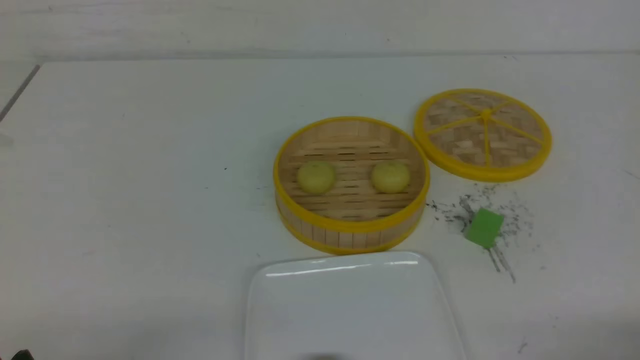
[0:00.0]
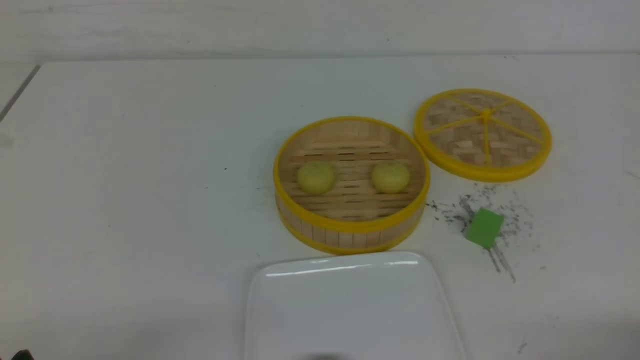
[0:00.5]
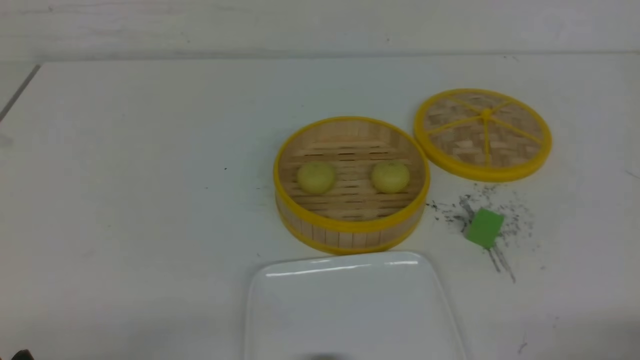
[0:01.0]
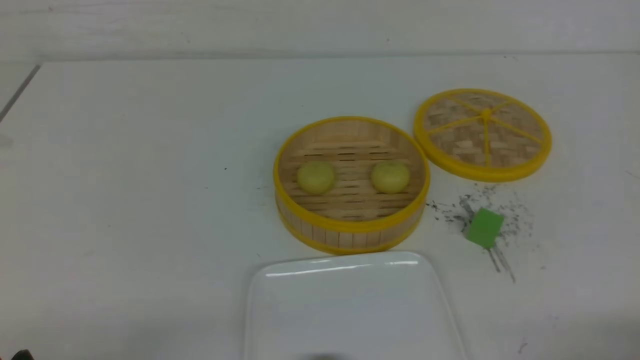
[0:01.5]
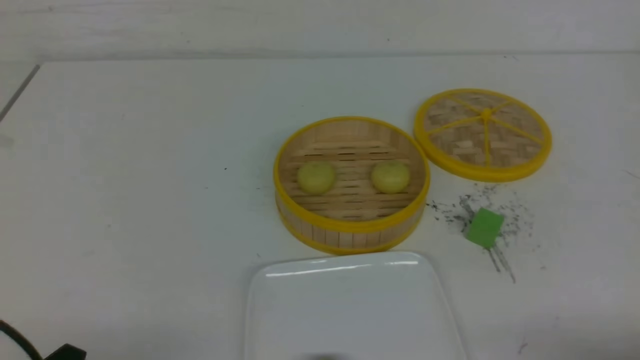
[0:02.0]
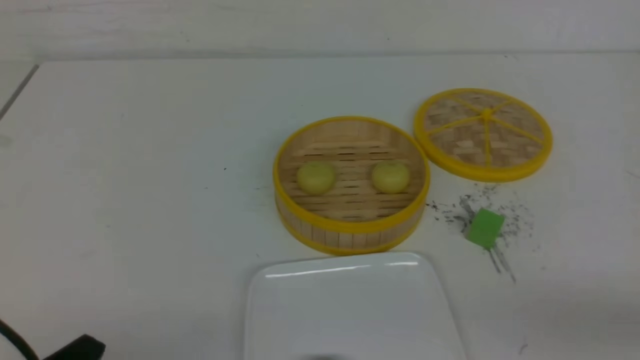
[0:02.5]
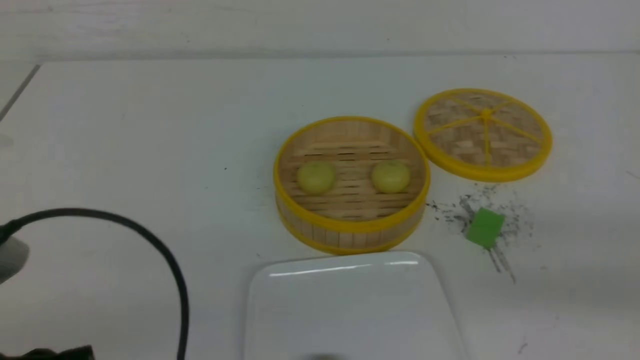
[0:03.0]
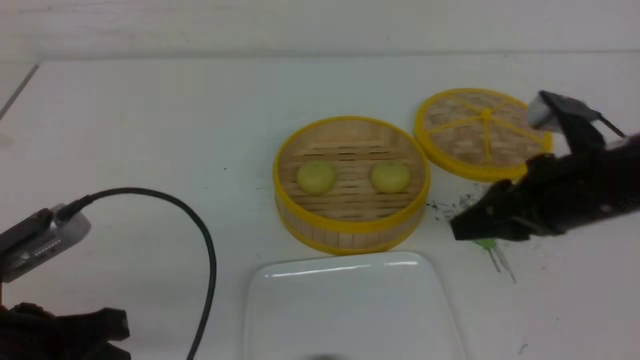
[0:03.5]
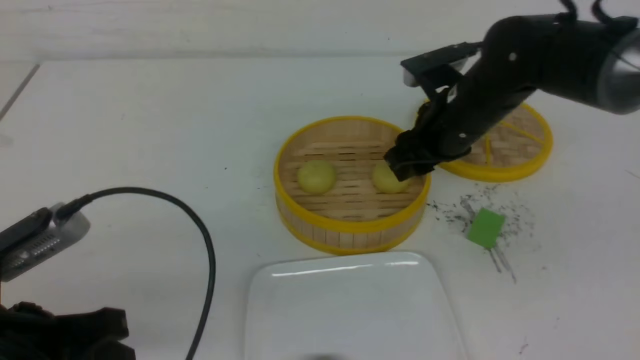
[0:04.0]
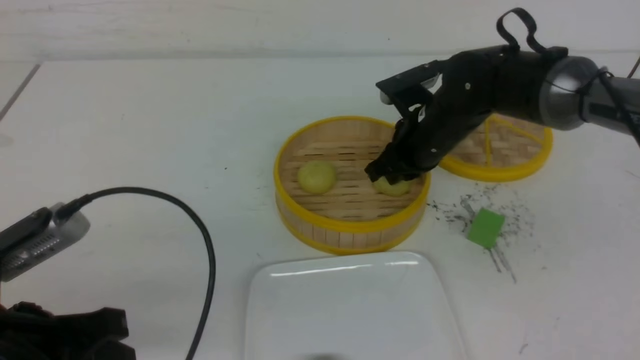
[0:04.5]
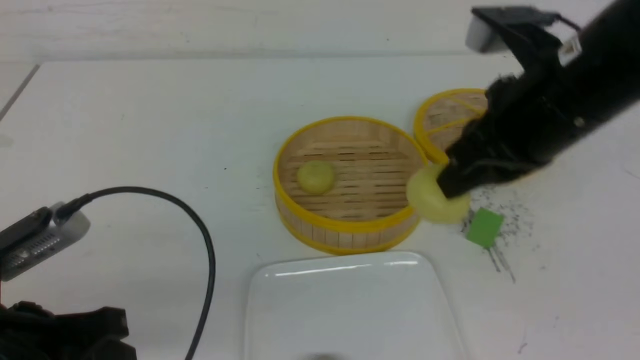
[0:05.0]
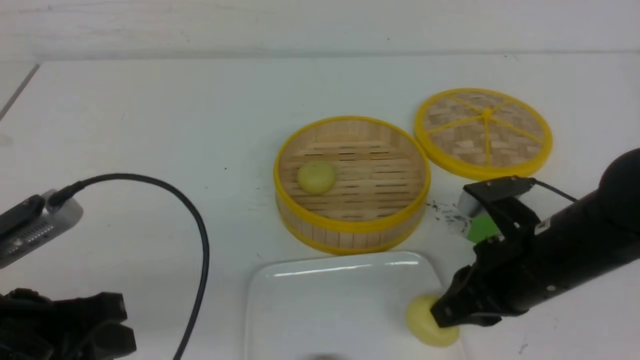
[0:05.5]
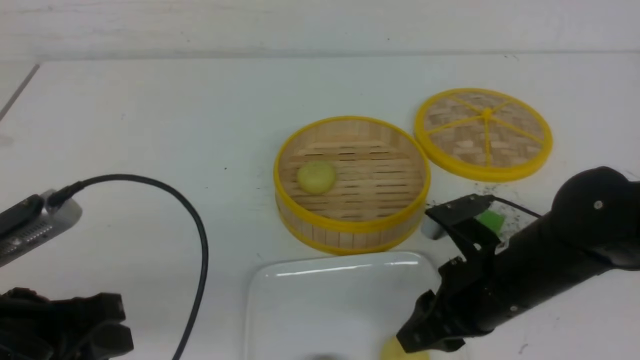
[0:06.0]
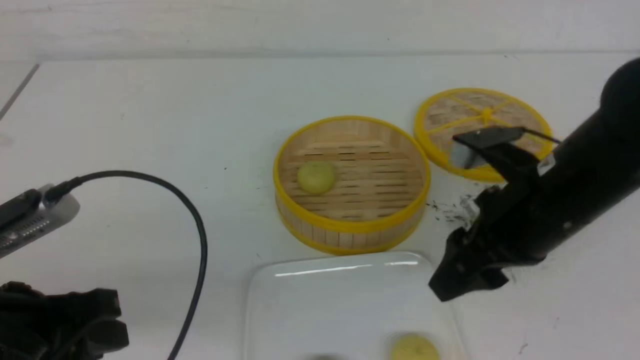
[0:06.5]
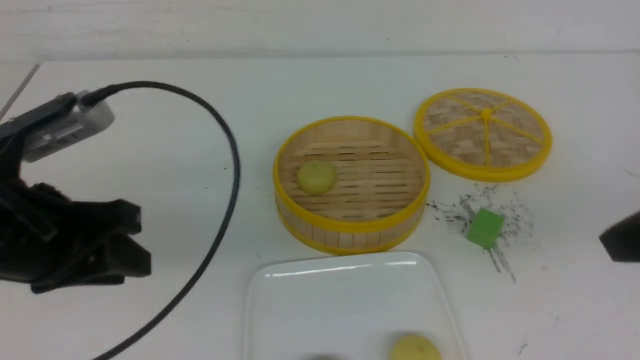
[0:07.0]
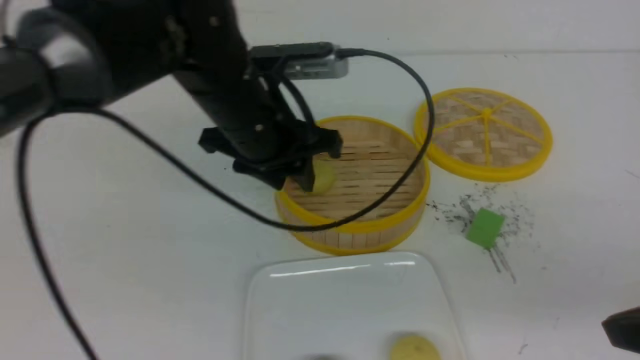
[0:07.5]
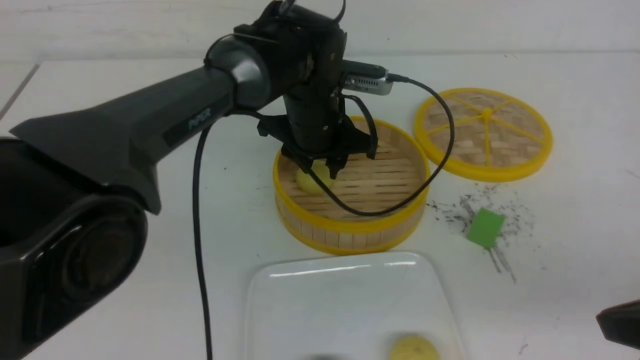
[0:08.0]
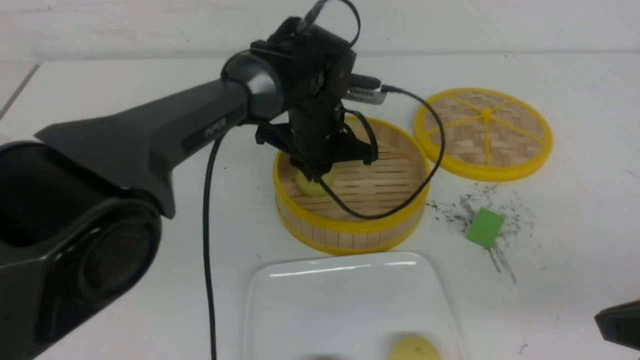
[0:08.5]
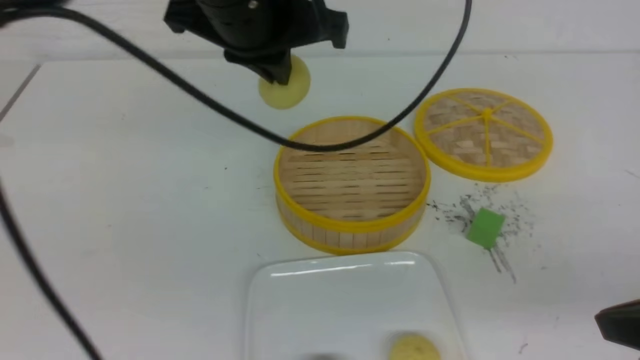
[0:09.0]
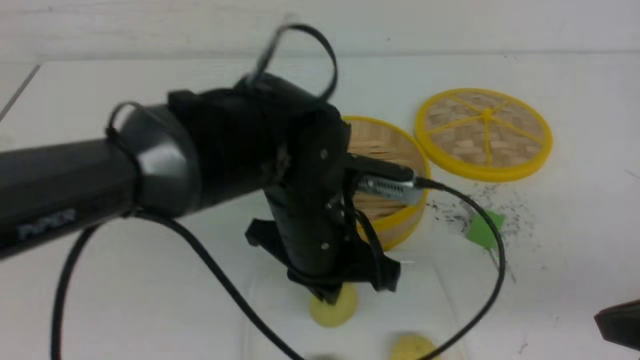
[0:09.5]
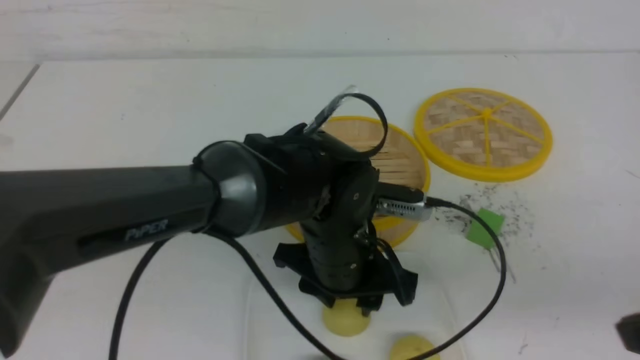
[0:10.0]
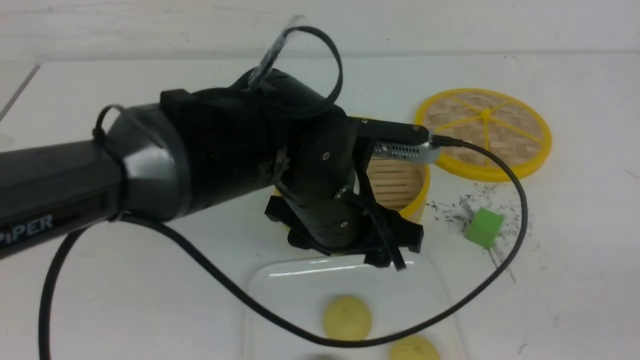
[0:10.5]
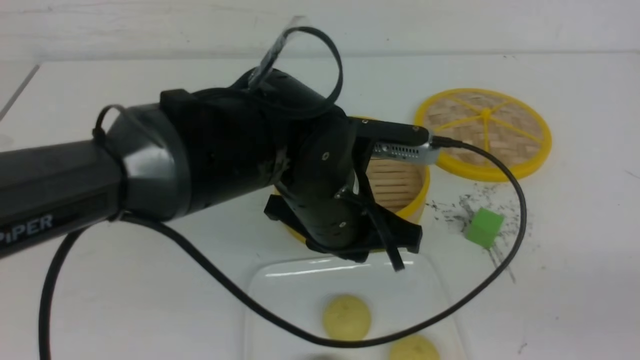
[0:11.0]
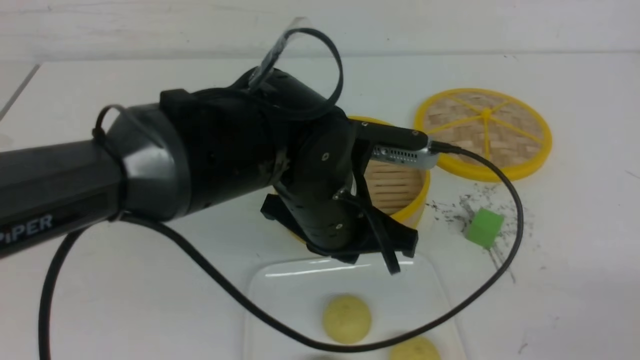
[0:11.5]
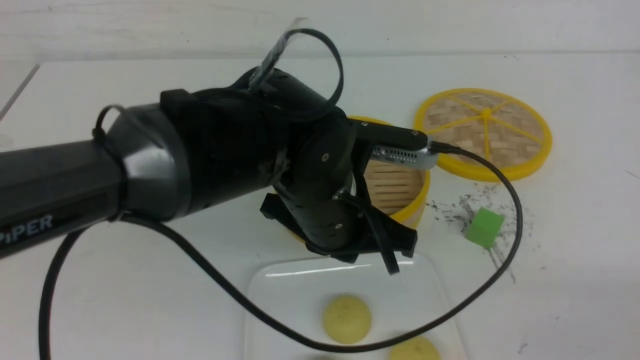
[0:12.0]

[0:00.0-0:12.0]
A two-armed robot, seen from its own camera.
Step, 0:00.0 to 0:04.5: use the right arm to grab the steamed stuffed bun that is closest to it.
Step, 0:05.0 to 0:06.0: use the right arm to put the steamed stuffed bun into the plate.
Step, 0:06.5 to 0:08.5: use the left arm to grab the steamed stuffed bun that is closest to it.
Step, 0:09.0 to 0:10.0: use the left arm to put the steamed stuffed bun into the plate.
0:02.0 to 0:04.0: The right gripper travels forward and to the left by some 35 cm, and closes, then reopens, while the left gripper is displaced upward and forward by some 10 cm, and closes, then reopens.
0:04.0 to 0:06.0: The right gripper travels backward by roughly 15 cm, and closes and opens again.
0:06.0 to 0:08.0: The left gripper travels forward and to the right by approximately 35 cm, while the right gripper heads to the right, backward and upward, covering some 20 cm, and closes its fingers.
0:08.0 to 0:10.0: The left gripper goes approximately 15 cm backward, goes upward and returns, roughly 15 cm each way, and closes, then reopens.
0:10.0 to 0:12.0: The left gripper travels upward by about 5 cm, and closes up. The right gripper travels backward and downward by some 10 cm.

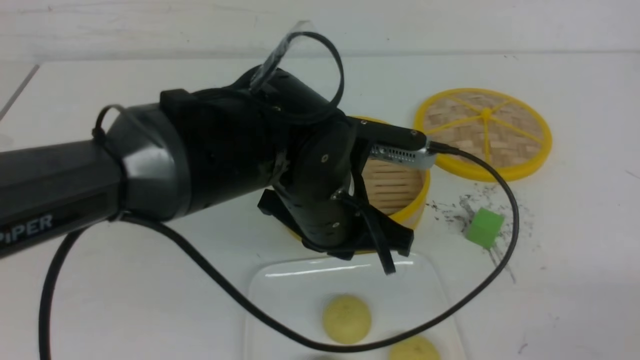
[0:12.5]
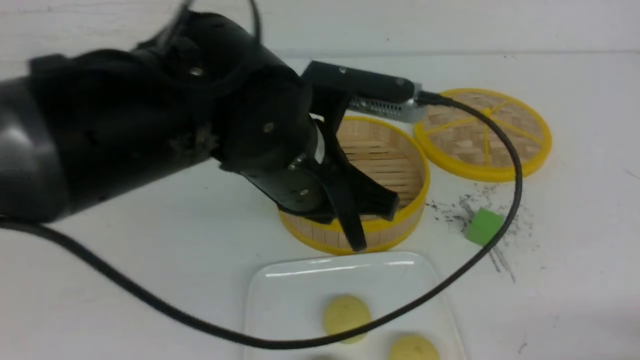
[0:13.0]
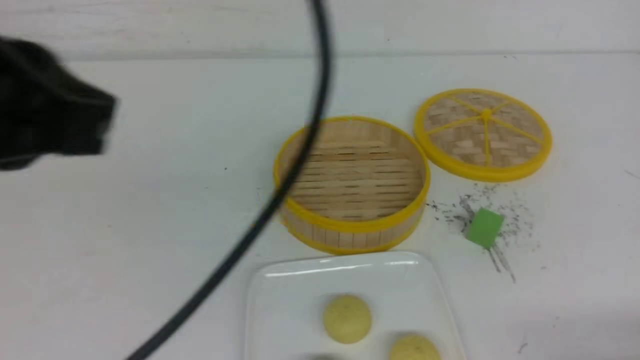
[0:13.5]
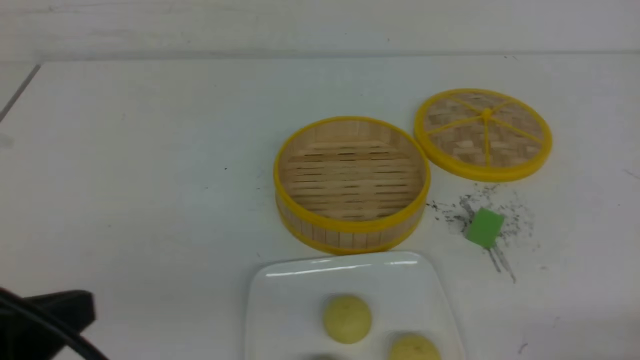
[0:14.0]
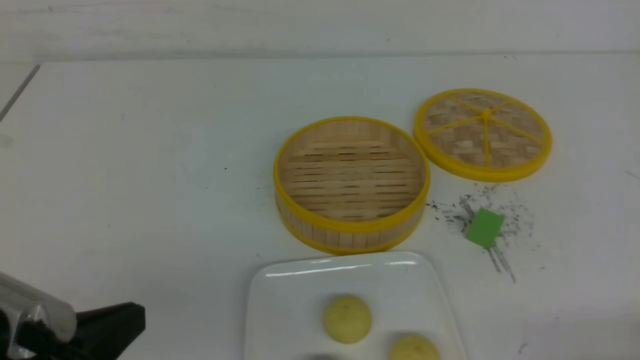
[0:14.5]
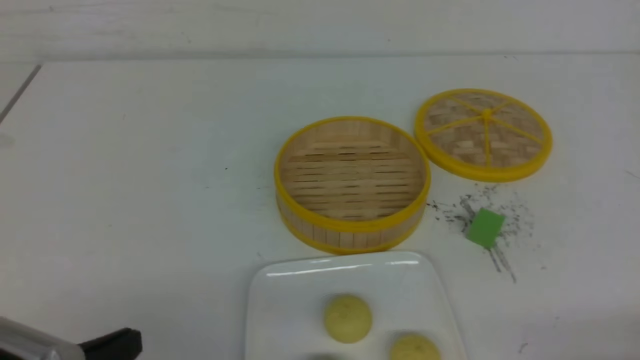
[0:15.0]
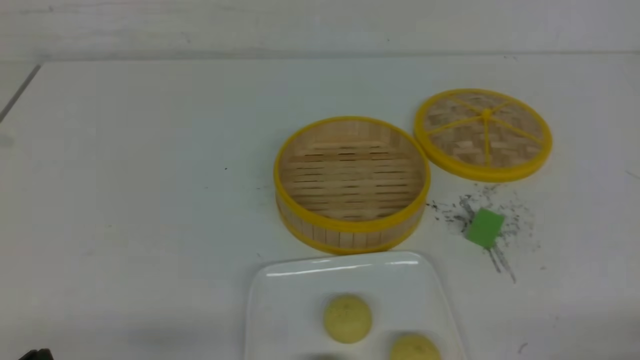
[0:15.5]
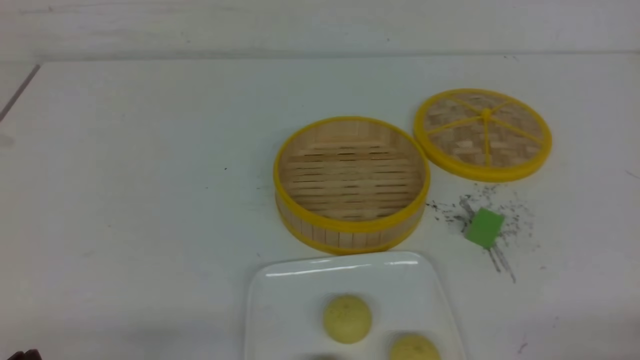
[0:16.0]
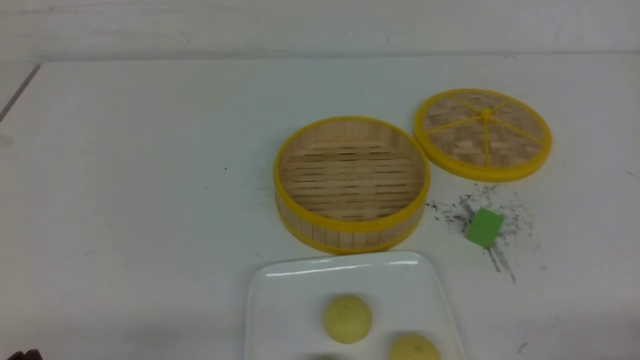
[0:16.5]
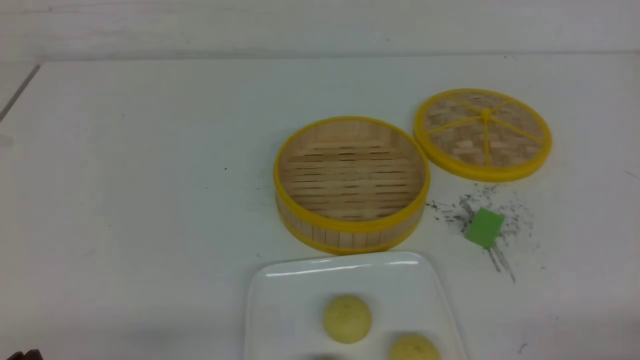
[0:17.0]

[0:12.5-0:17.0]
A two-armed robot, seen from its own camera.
0:12.5 to 0:14.5: The left gripper goes approximately 25 cm to the left and backward, while the right gripper heads downward, covering some 5 cm.
0:14.5 to 0:17.0: The left gripper shifts approximately 10 cm downward and to the left.
